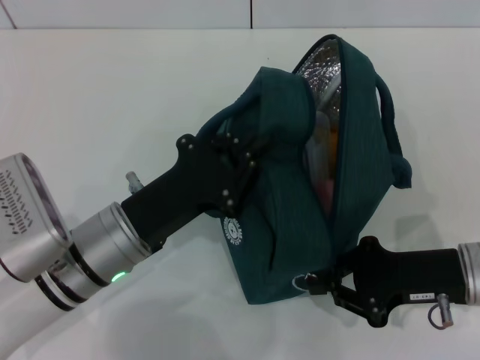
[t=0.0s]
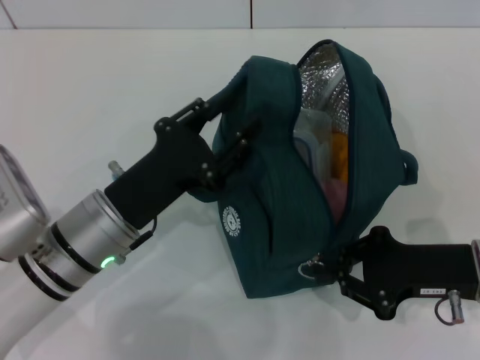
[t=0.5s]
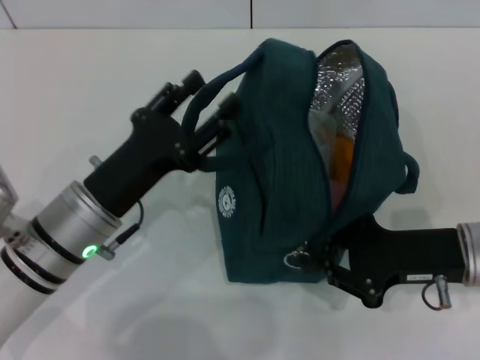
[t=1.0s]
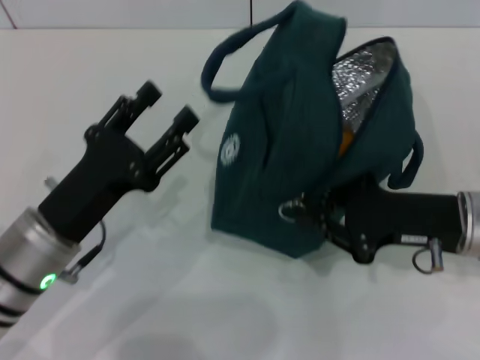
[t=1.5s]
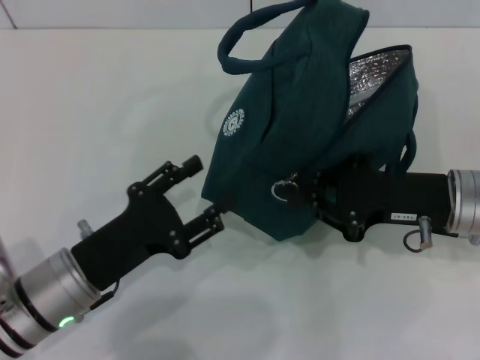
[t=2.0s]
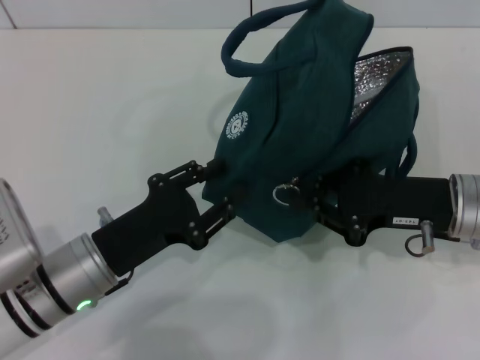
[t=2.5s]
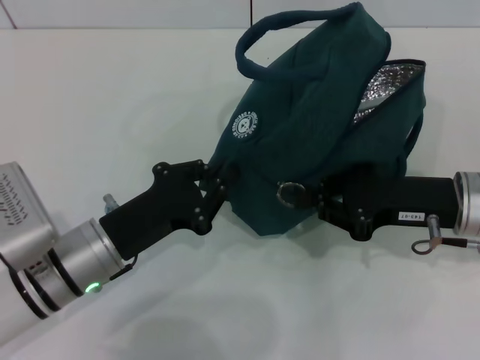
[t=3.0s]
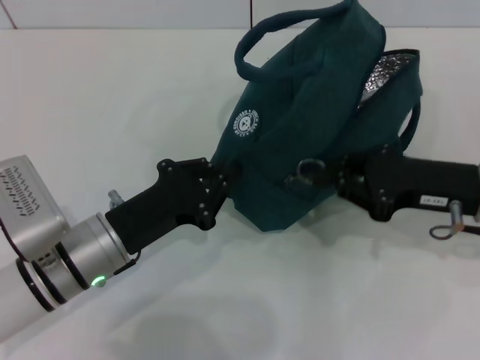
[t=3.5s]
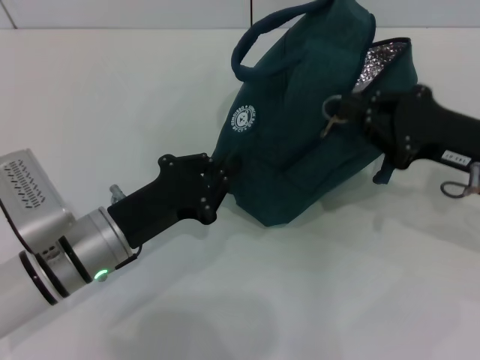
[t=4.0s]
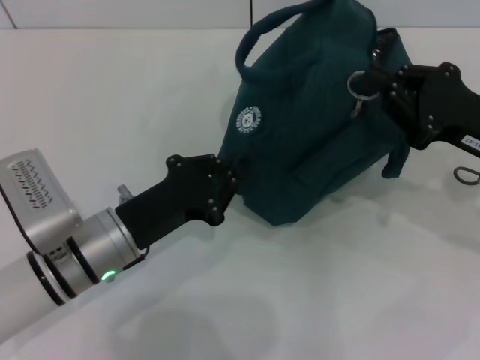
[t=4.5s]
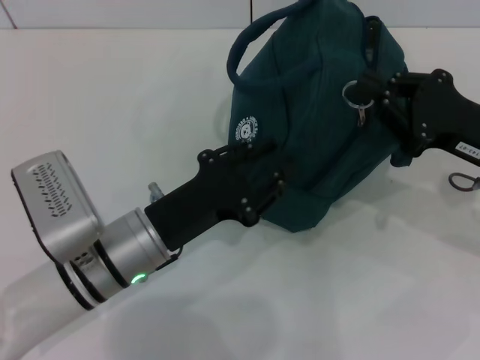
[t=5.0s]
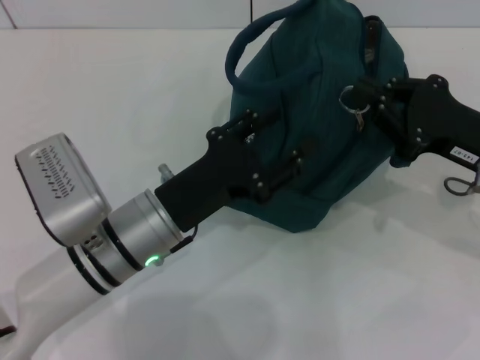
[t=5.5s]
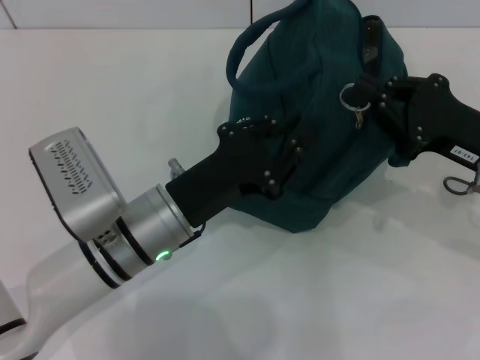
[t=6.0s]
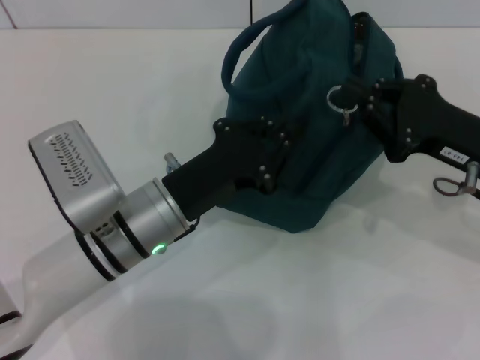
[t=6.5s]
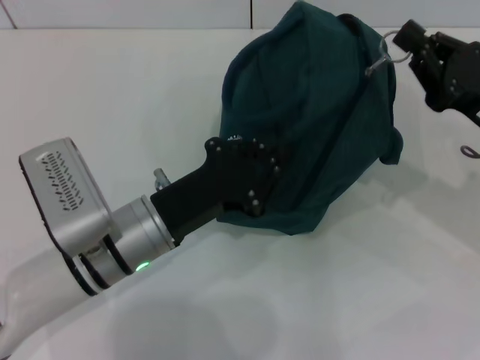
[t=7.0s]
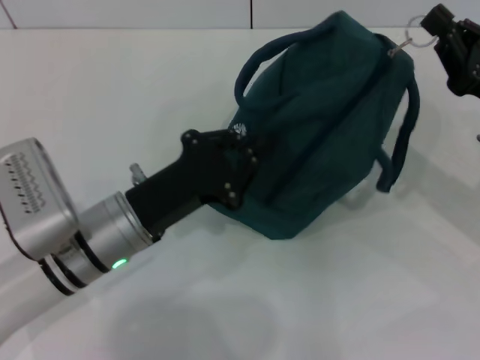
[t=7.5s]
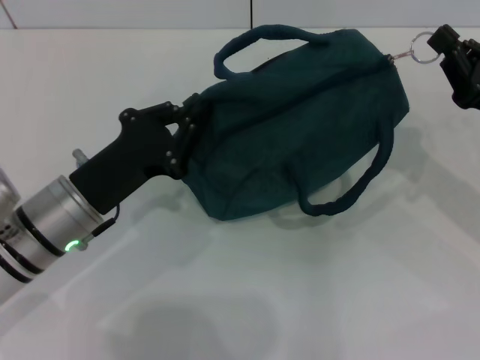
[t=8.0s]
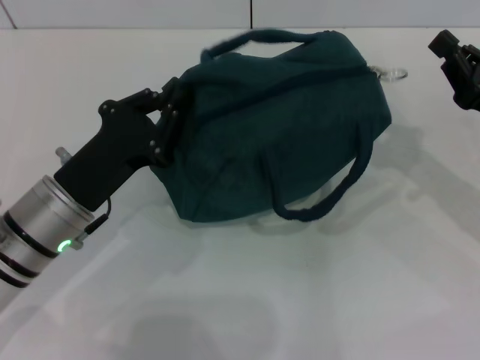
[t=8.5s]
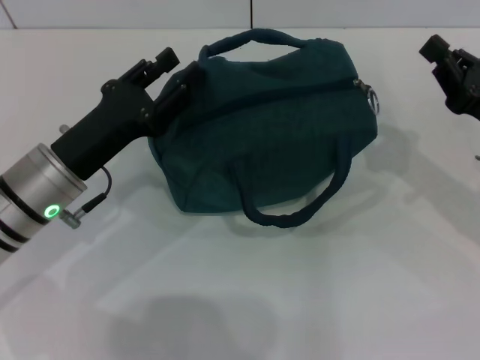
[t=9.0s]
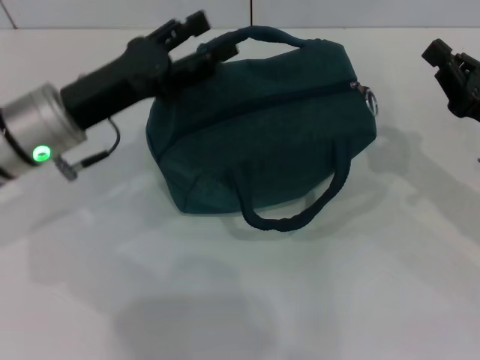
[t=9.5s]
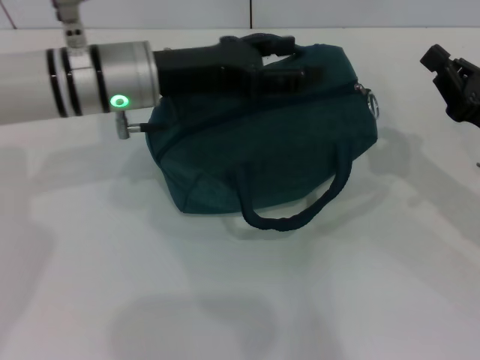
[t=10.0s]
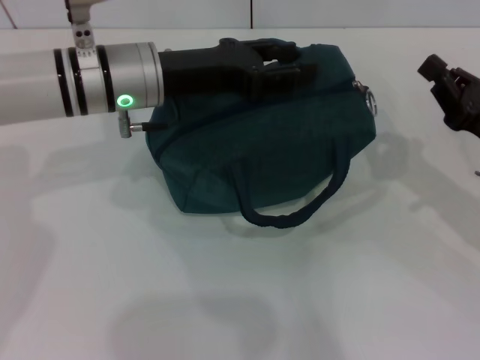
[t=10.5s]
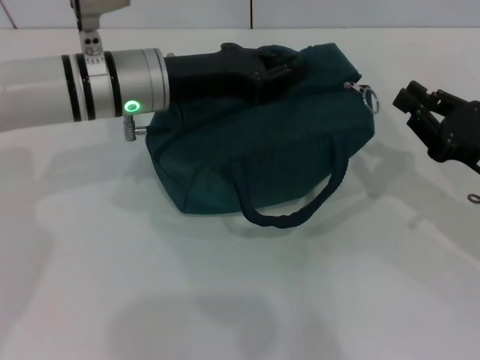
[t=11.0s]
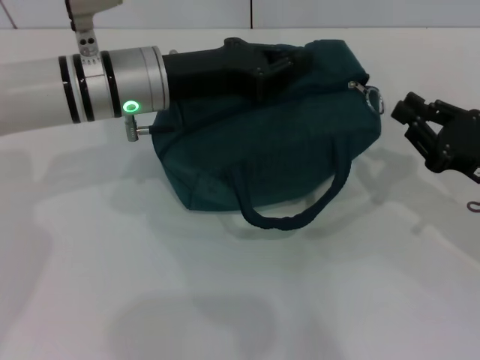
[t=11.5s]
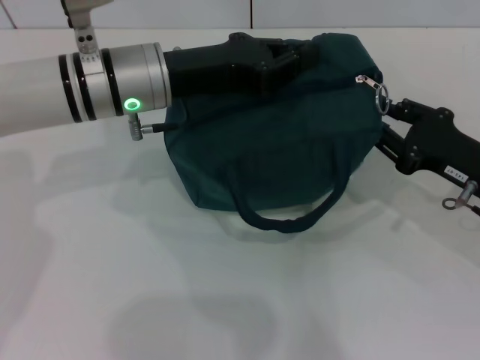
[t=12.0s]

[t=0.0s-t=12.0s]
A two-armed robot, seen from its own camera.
t=0.0s to t=2.0s: The right gripper moves about 5 cm; the left gripper ends up about 5 cm from where it was, and opens up.
t=2.0s to t=4.0s: The left gripper ends up approximately 5 cm from where it was, and closes its fingers.
t=4.0s to t=6.0s: The left gripper moves to the right, about 5 cm, and opens.
t=6.0s to t=8.0s: The left gripper heads to the left, covering approximately 10 cm.
t=8.0s to t=10.0s: The left gripper goes approximately 15 cm forward, upward and to the right, and opens.
t=10.0s to t=12.0s: The left gripper closes its fingers.

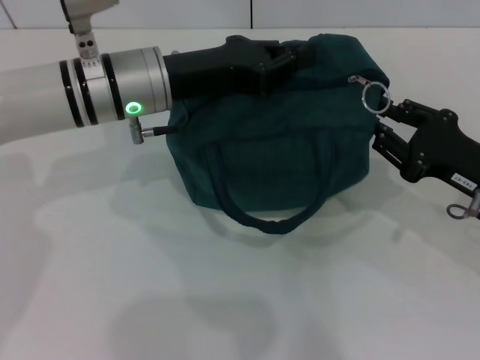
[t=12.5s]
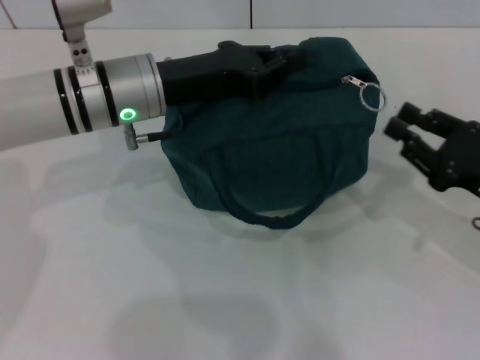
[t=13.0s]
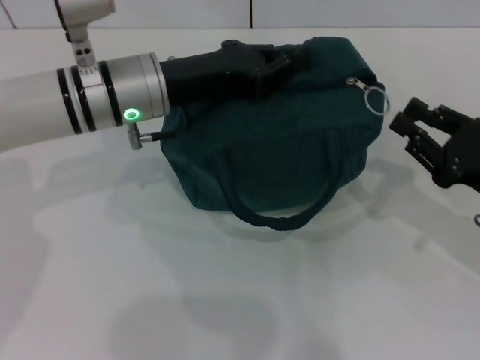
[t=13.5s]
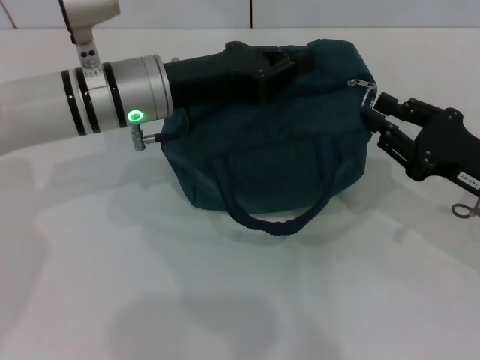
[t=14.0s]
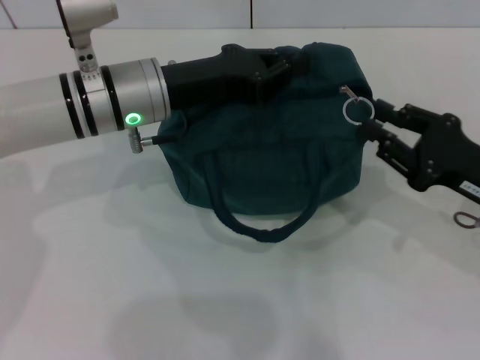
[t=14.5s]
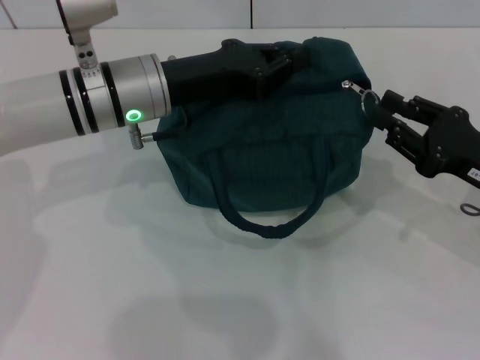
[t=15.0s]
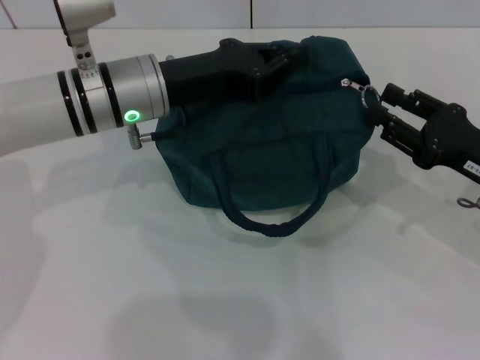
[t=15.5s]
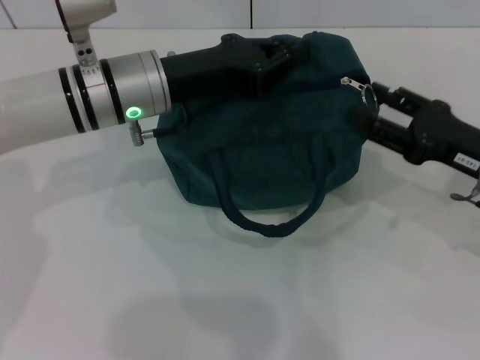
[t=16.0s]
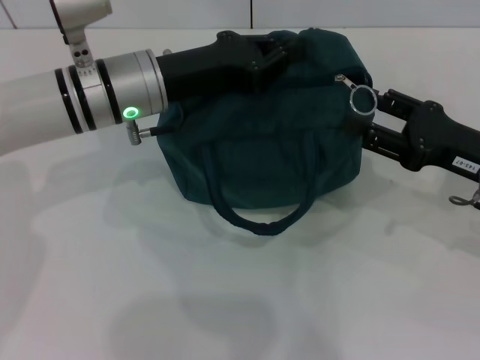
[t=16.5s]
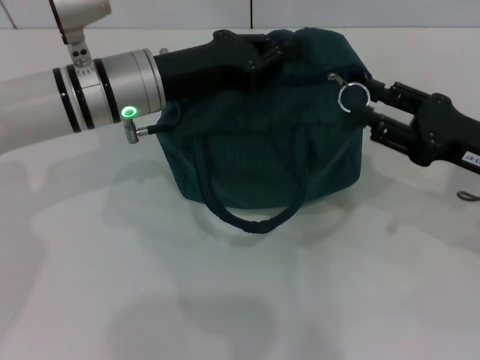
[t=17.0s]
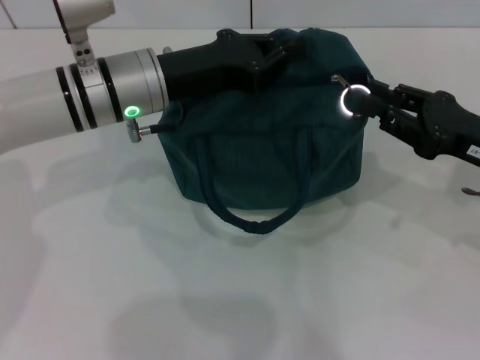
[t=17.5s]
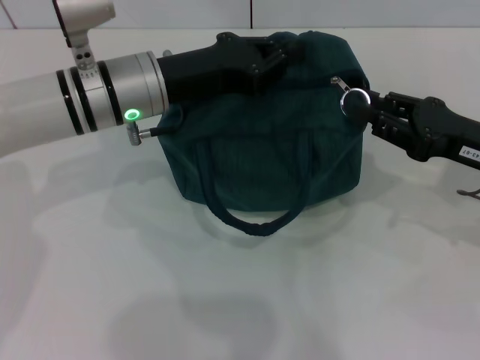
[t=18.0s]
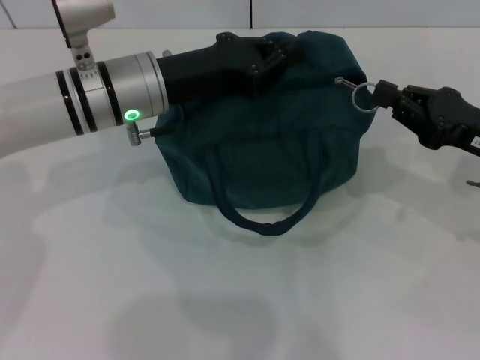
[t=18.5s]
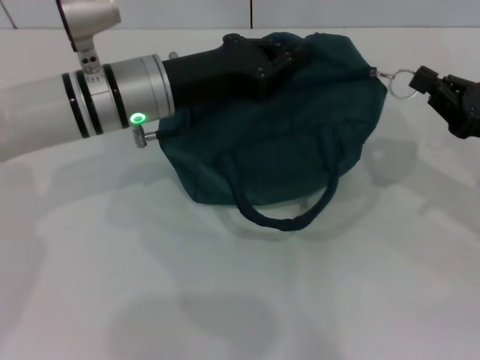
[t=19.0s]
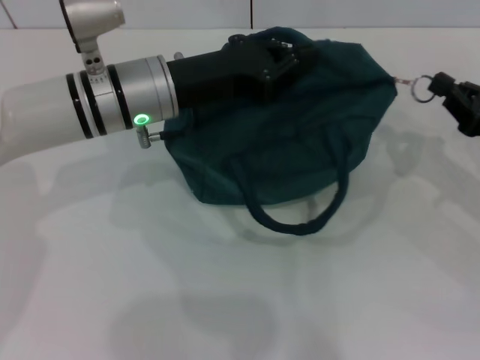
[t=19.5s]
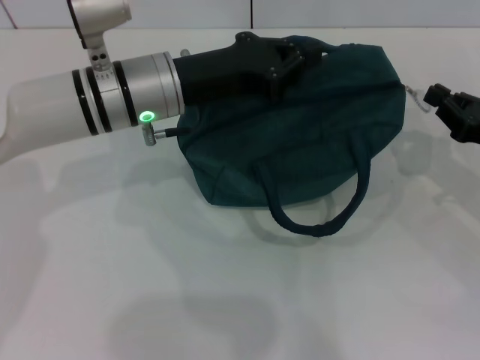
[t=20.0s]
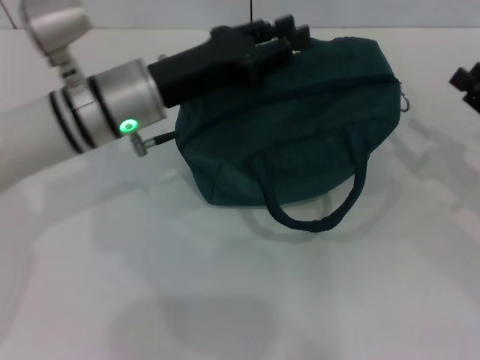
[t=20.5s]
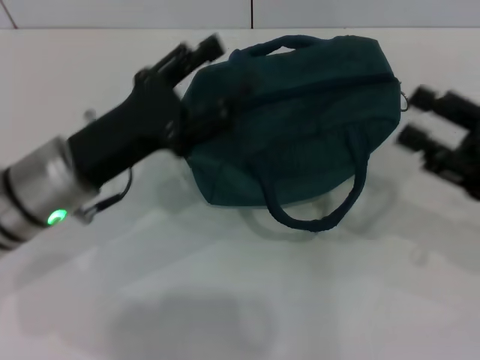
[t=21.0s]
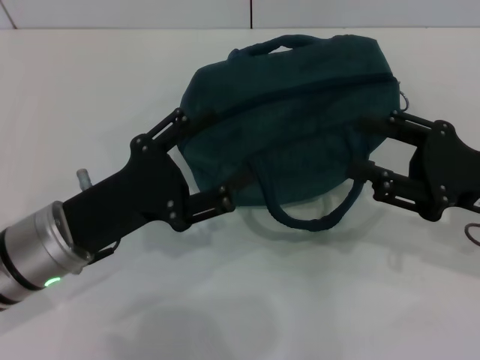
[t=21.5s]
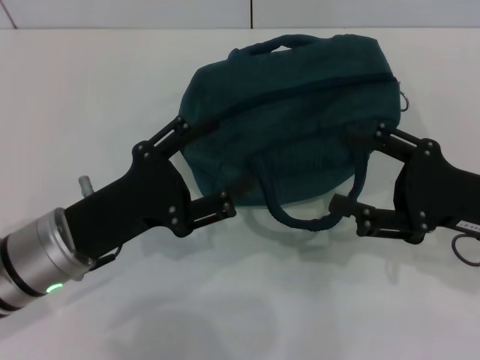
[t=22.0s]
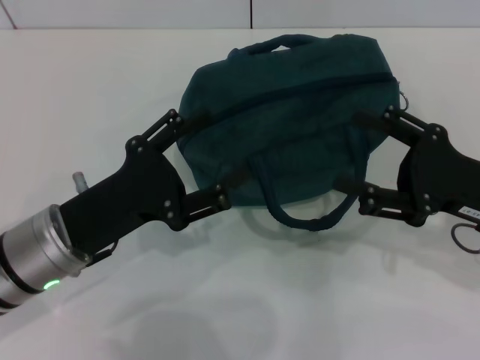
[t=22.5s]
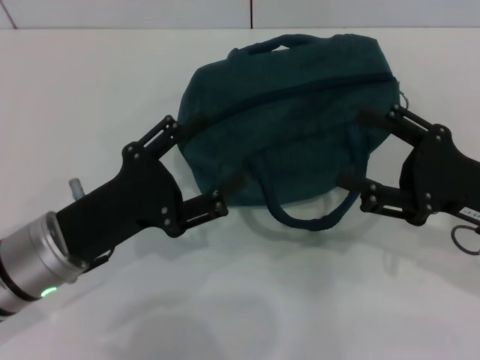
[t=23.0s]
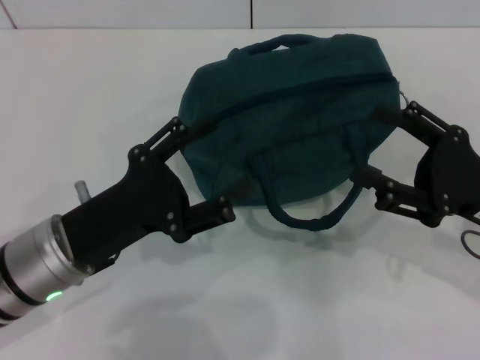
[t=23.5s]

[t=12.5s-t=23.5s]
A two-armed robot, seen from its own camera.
Step, t=12.5s to t=20.0s: Zip up the lunch bag with your right hand.
t=12.5s to t=14.5s: The grippers make only small movements.
t=14.5s to t=16.0s: The right gripper opens.
t=16.0s to t=18.0s: The right gripper closes up.
t=18.0s to t=20.0s: The right gripper moves roughly 5 cm.
t=20.0s to t=21.5s: The left gripper heads backward, to the left and downward, covering some 15 cm, and opens its fingers. Meanwhile the right gripper heads to the left, covering about 5 cm, and opens up.
t=21.5s to t=23.5s: The grippers move only a little.

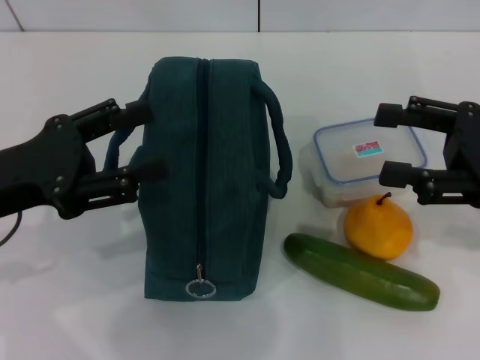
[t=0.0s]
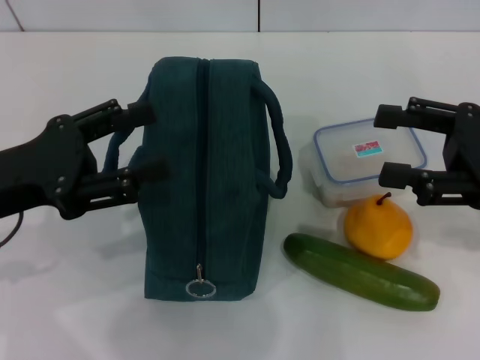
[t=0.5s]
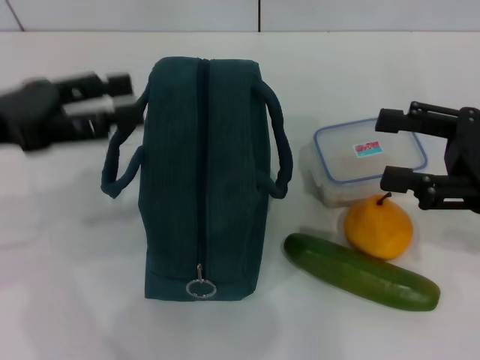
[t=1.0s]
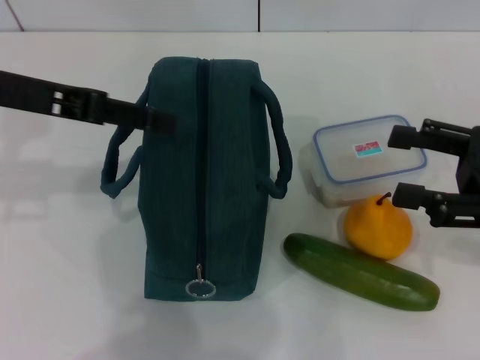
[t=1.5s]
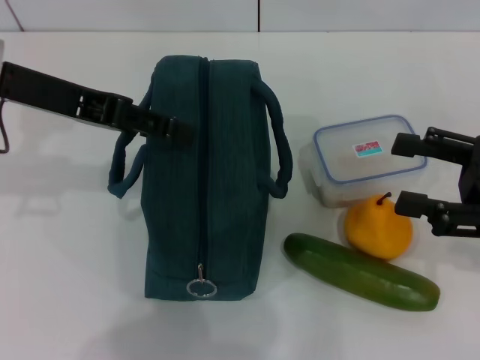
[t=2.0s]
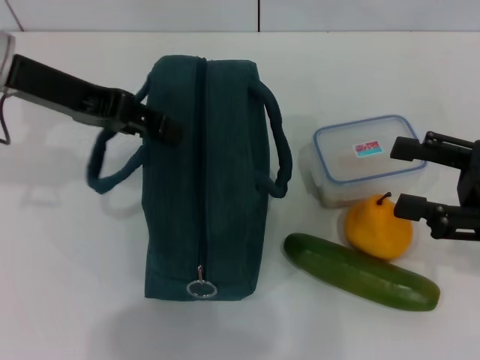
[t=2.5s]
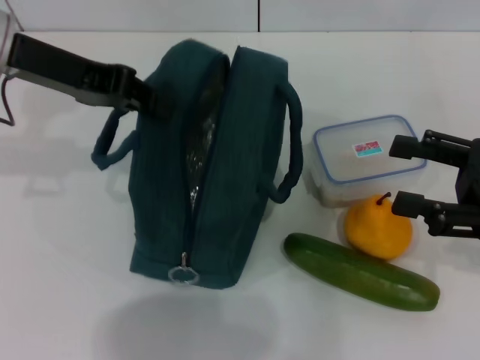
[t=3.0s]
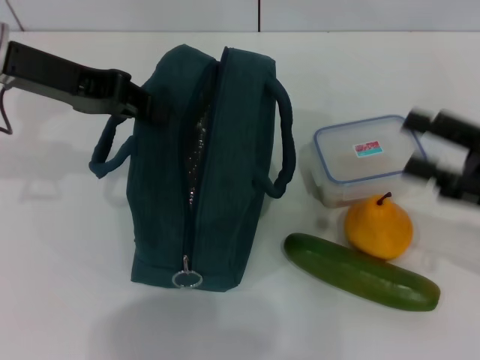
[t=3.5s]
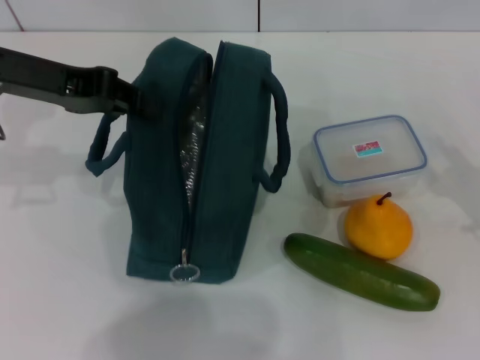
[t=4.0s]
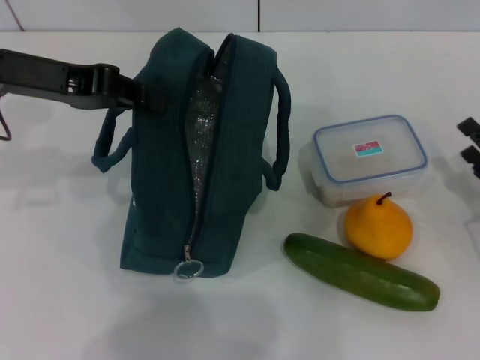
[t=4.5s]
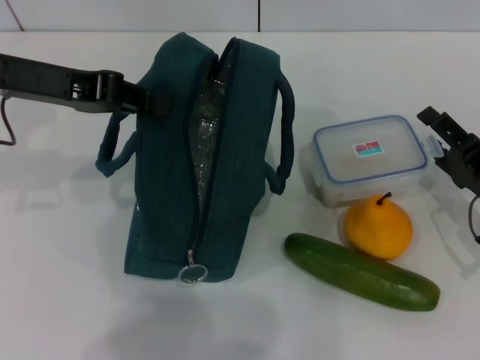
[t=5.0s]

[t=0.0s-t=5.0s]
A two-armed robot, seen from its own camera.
Step, t=0.0s to t=3.0s: Hold the lunch bag with your left hand.
t=0.0s to t=2.5s: The left gripper is displaced forward and upward by about 15 cm.
t=2.5s to t=5.0s: The right gripper travels downward by approximately 10 cm, while the left gripper closes its fingers.
